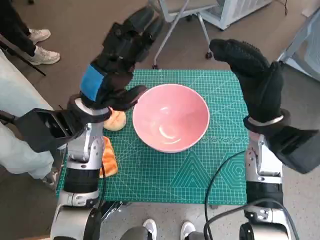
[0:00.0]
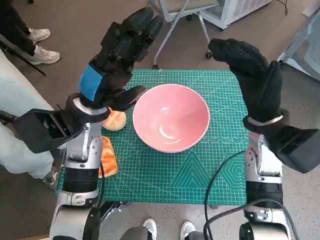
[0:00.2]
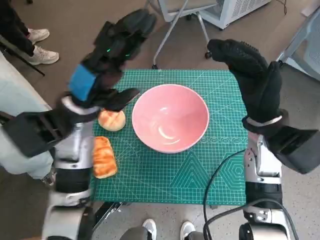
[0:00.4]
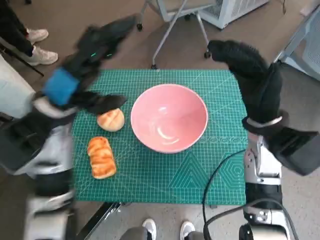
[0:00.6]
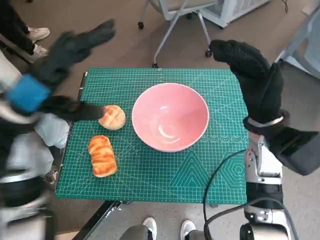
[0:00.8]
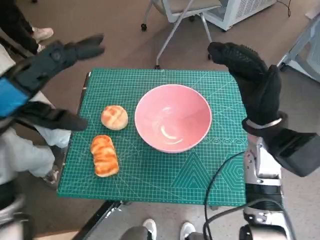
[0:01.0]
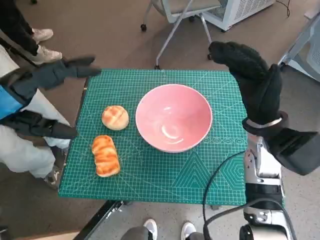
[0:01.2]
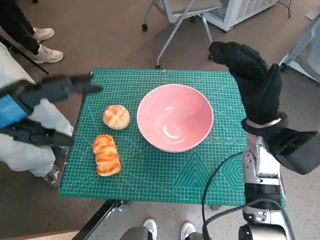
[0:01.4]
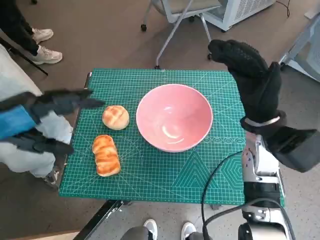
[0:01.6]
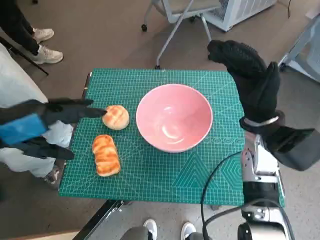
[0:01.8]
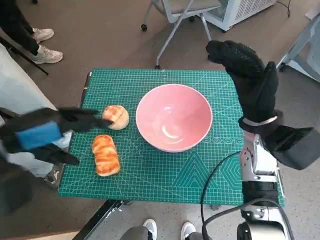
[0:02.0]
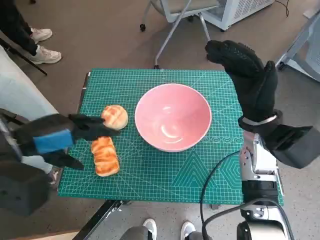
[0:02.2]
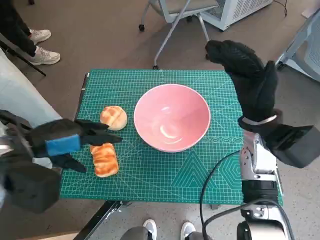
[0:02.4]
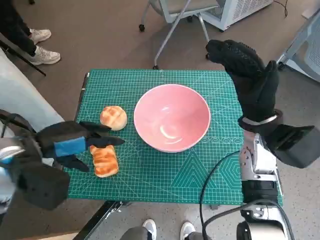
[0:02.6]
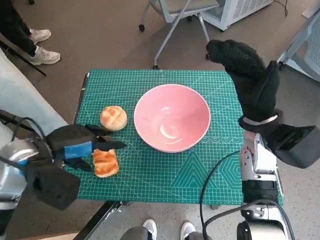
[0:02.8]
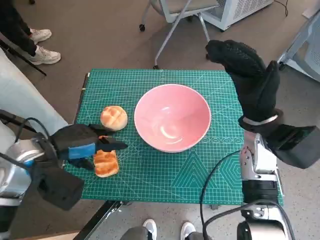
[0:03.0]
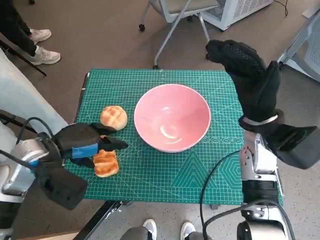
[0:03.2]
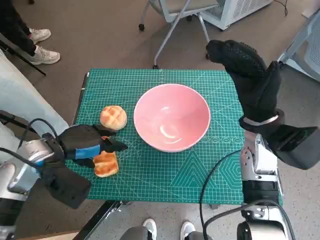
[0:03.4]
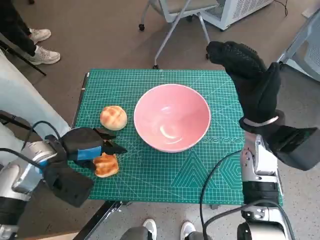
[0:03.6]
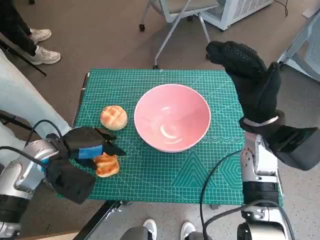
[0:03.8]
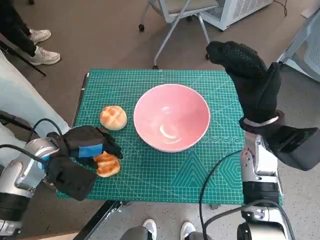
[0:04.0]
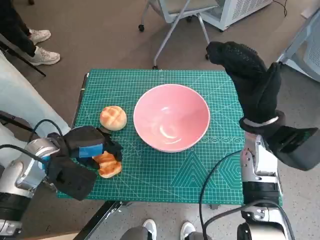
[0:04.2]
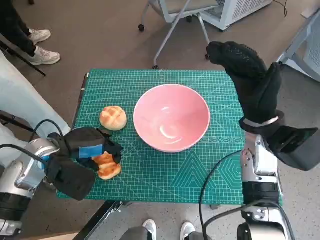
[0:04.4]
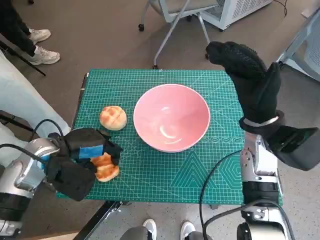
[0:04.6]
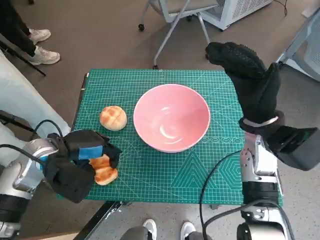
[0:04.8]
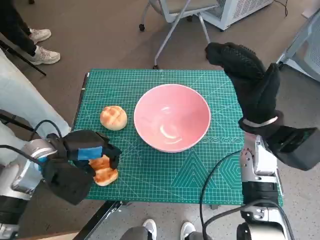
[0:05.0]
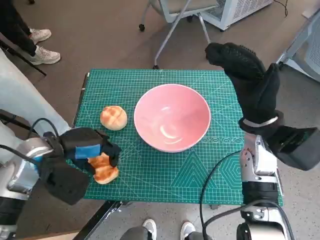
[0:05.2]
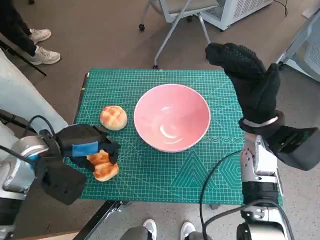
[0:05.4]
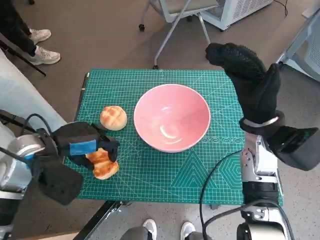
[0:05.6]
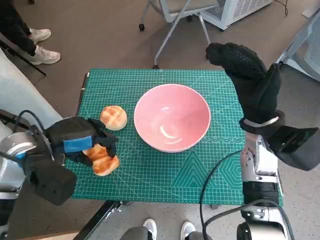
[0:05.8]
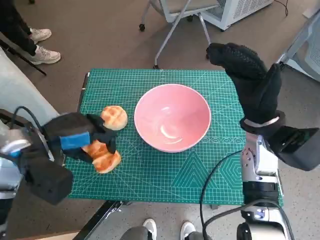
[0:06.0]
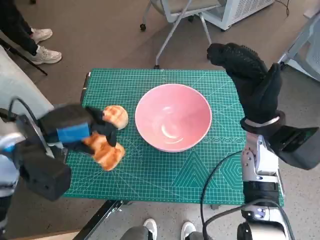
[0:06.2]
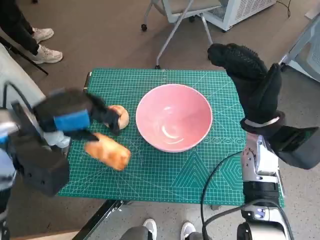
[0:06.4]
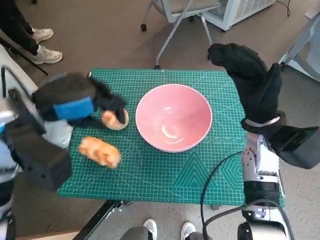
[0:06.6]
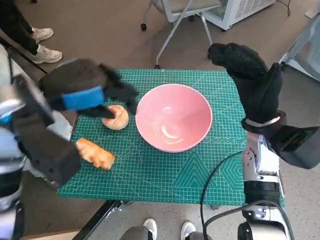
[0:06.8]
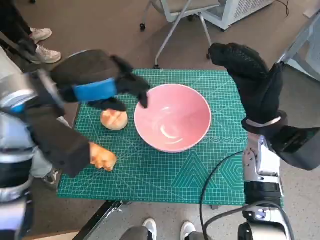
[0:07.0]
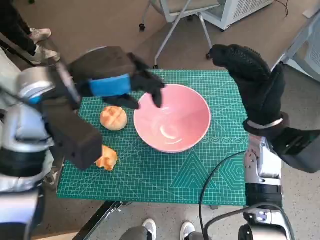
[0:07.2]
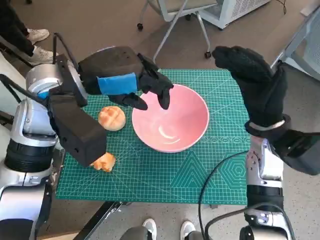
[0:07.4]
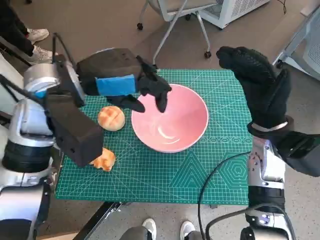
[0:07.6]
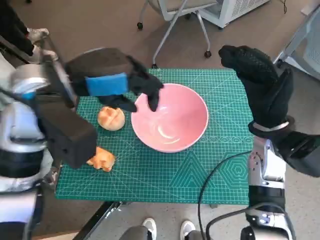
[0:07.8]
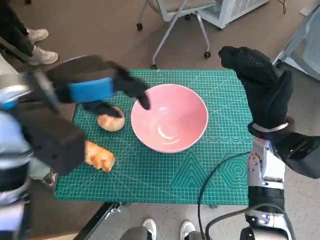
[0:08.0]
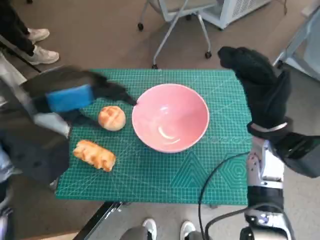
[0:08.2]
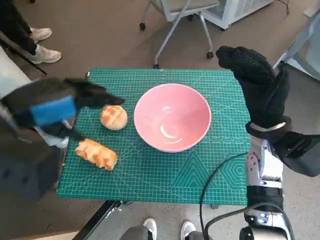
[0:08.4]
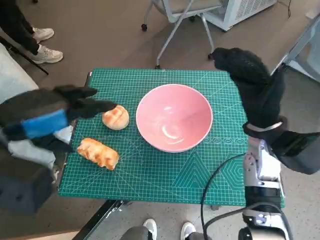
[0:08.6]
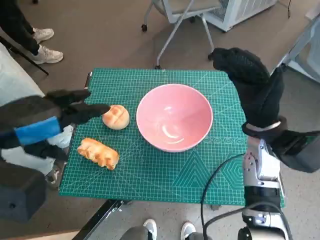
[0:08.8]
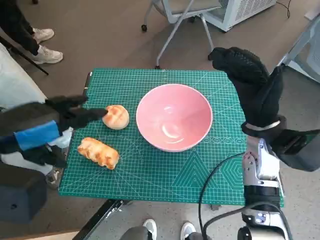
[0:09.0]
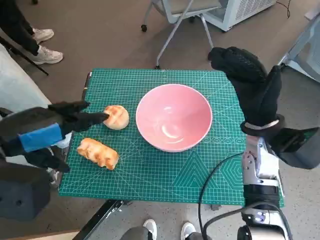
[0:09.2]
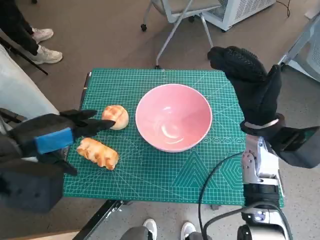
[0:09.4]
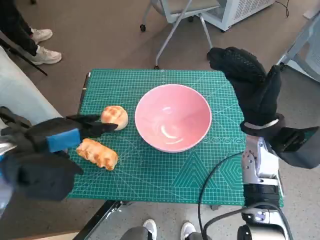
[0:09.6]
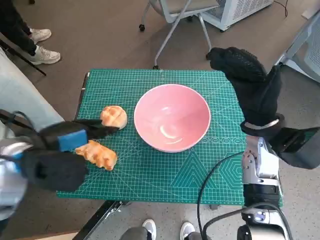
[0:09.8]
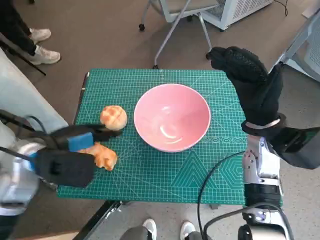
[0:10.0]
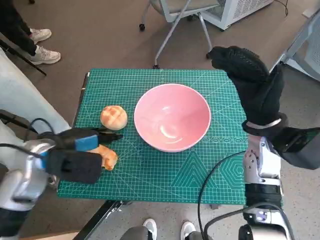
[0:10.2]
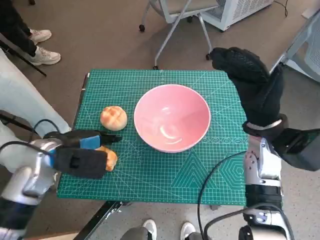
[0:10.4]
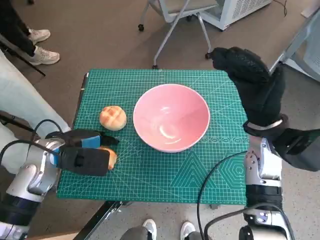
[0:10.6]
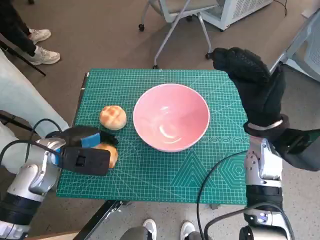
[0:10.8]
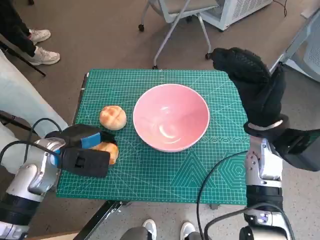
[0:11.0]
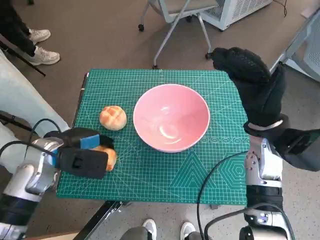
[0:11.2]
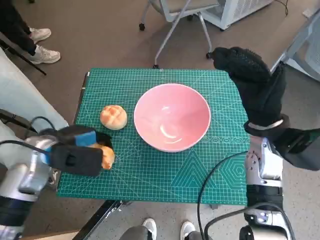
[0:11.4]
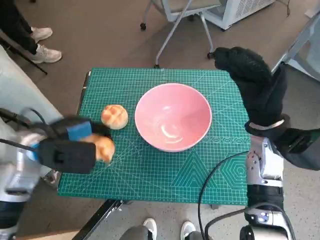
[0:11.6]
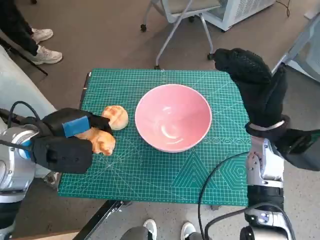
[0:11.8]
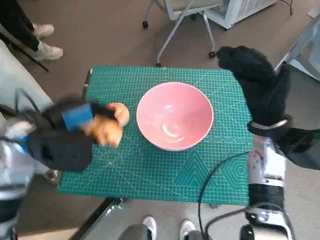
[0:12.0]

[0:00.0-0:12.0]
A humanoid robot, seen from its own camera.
Task of the whole recording: Push the bowl into the center of the table and put the bread into the bowl.
Step, 0:00.0 to 0:11.2: Grasp the long bread with left hand.
0:00.0 to 0:01.6: The left hand goes approximately 15 cm to the left, backward and upward.
0:01.6 to 0:03.0: The left hand shifts some 10 cm downward.
0:03.0 to 0:04.4: The hands stay close to where they were, moving slightly.
0:04.4 to 0:06.0: The left hand travels upward by approximately 5 cm.
0:06.0 to 0:07.6: The left hand travels upward and to the right by approximately 15 cm.
0:07.6 to 0:09.0: The left hand shifts roughly 15 cm backward and to the left.
0:09.0 to 0:10.4: The left hand travels downward and forward by about 15 cm.
0:10.4 to 0:12.0: The left hand is displaced upward by some 10 cm.

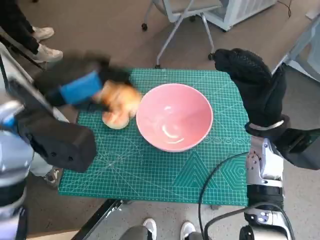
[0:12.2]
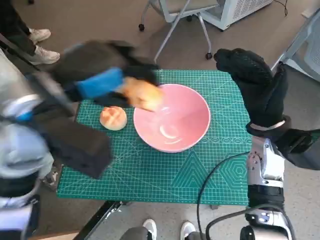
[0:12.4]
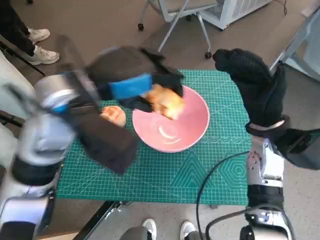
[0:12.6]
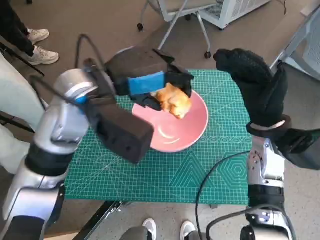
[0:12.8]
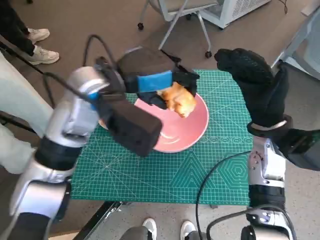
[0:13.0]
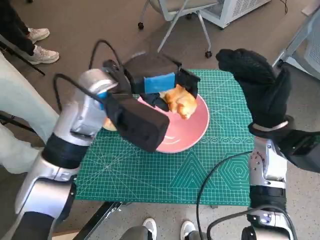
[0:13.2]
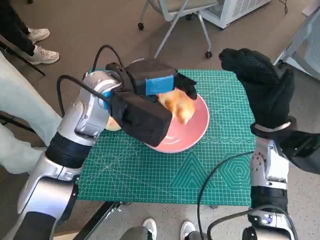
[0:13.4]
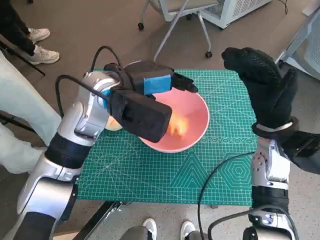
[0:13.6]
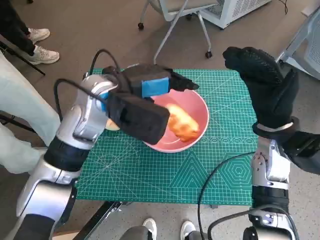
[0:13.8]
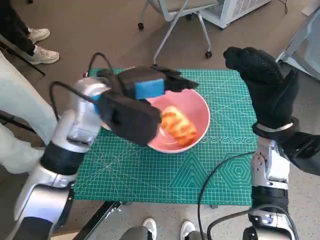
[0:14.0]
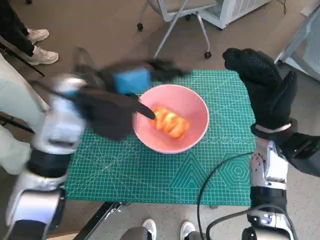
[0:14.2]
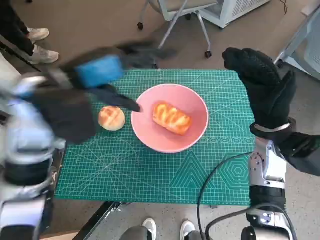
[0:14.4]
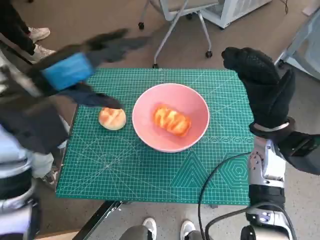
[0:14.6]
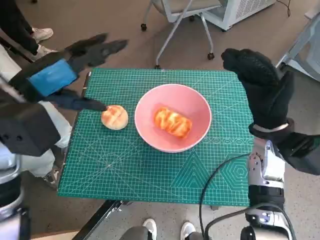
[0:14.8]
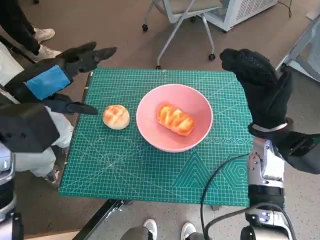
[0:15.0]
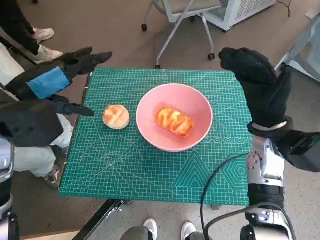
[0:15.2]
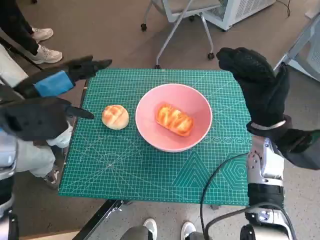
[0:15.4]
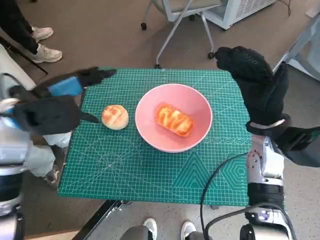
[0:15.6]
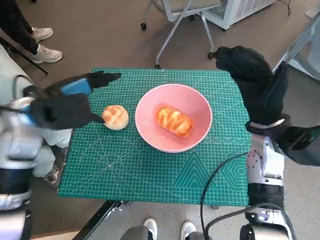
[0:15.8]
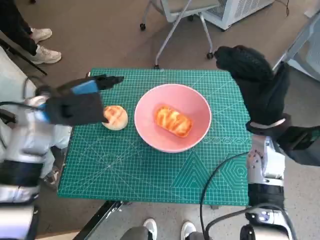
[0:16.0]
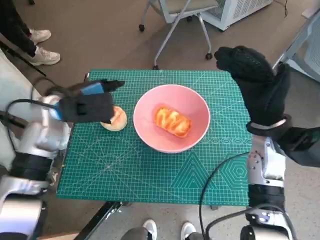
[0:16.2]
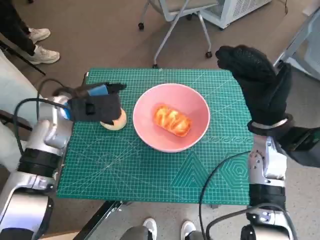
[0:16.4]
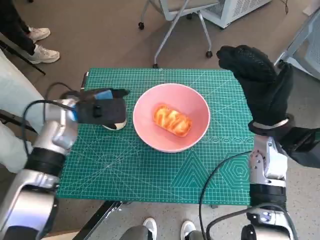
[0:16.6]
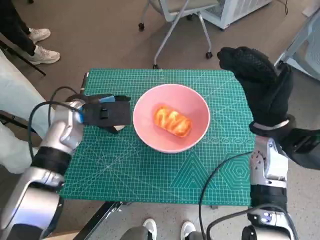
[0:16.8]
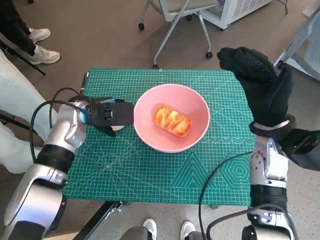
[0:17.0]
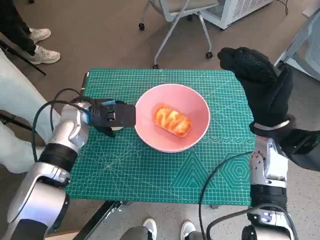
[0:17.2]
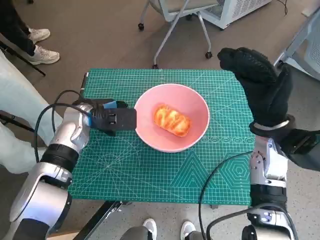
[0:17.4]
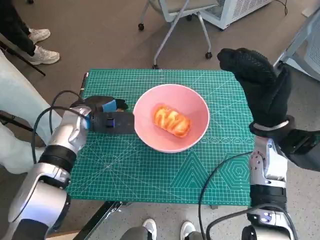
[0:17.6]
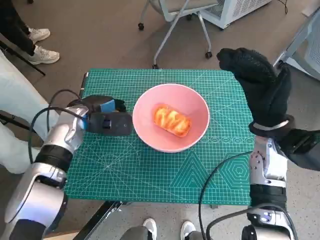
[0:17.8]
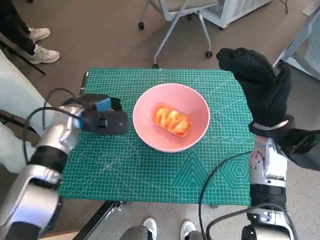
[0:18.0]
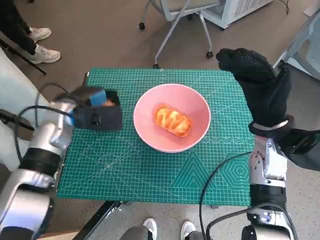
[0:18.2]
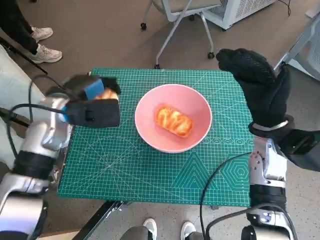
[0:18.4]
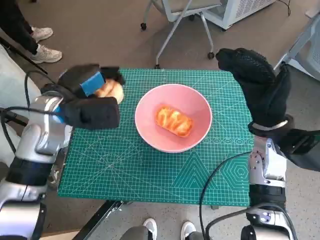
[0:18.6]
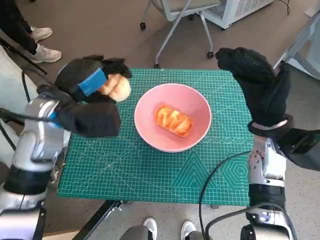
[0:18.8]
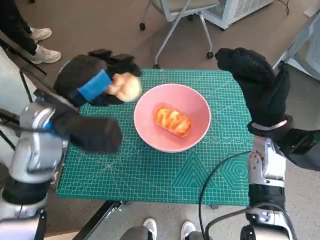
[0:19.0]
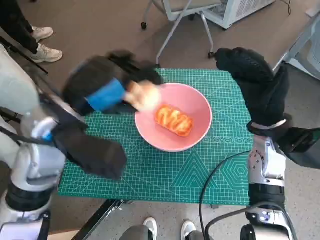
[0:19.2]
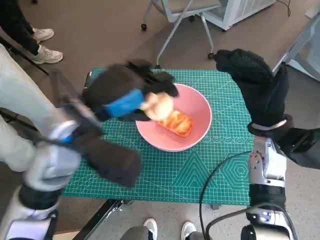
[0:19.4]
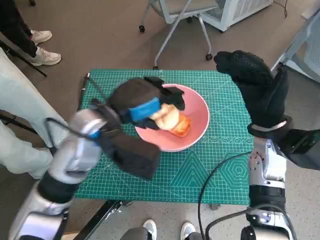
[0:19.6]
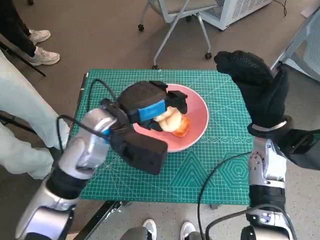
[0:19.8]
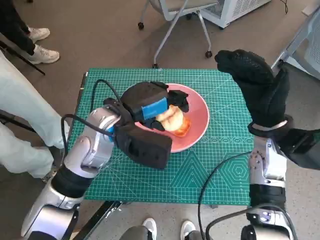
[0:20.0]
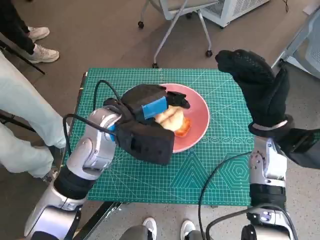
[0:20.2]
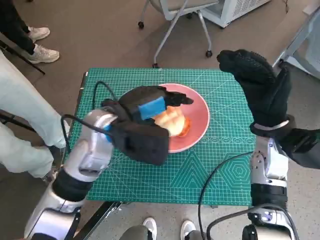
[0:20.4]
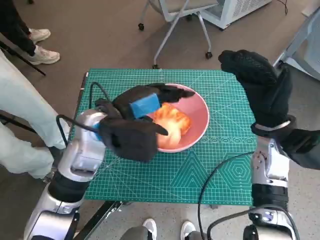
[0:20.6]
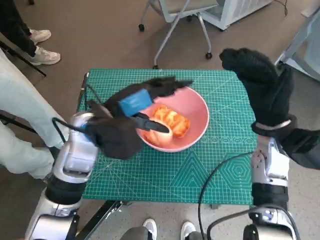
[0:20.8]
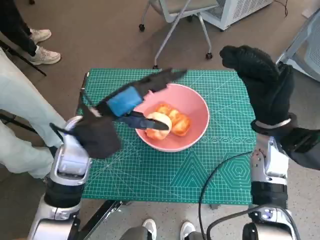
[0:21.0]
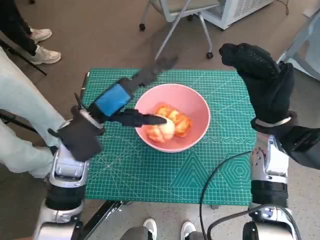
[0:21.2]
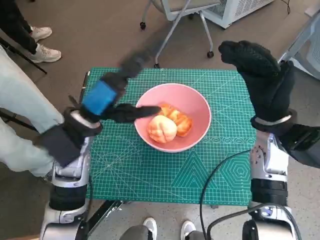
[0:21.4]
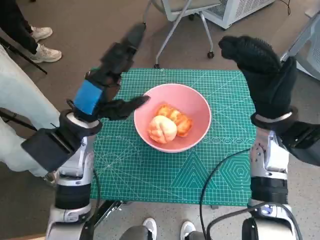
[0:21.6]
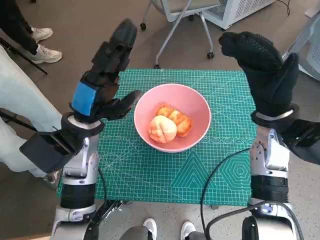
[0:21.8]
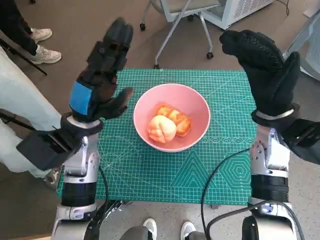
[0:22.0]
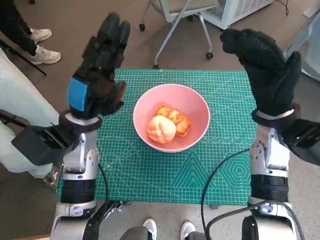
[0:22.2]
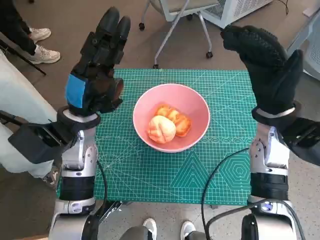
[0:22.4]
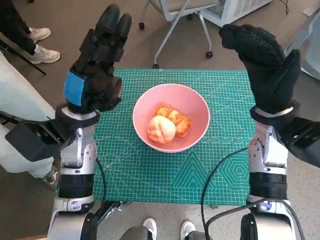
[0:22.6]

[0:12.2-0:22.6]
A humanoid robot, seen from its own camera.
Task of the whole recording: Push the bowl into the center of the table and put the bread into the bowl.
Step, 0:12.2 to 0:14.2: Place the long bread in pink bowl with left hand.
Step, 0:14.4 to 0:17.6: Grasp the round bread with left hand.
Step, 0:17.8 to 0:20.8: Place the round bread in pink bowl with left hand.
0:12.2 to 0:13.6: The left hand heads to the right and forward, covering roughly 10 cm.
0:13.6 to 0:15.2: The left hand goes about 15 cm to the left and backward.
0:15.2 to 0:16.6: The left hand goes roughly 15 cm downward and forward.
0:16.6 to 0:18.2: There are only small adjustments of the hands.
0:18.2 to 0:19.6: The left hand moves to the right, upward and backward, some 15 cm.
